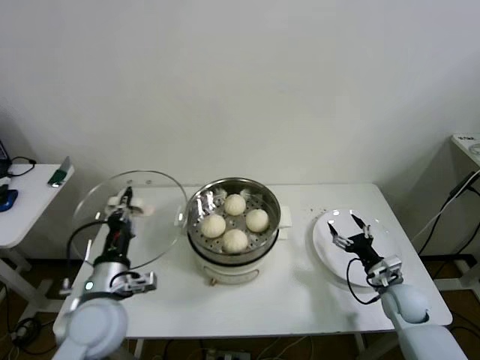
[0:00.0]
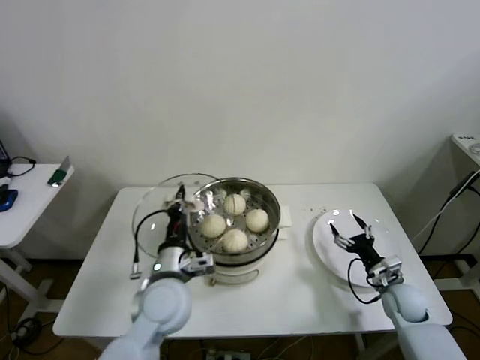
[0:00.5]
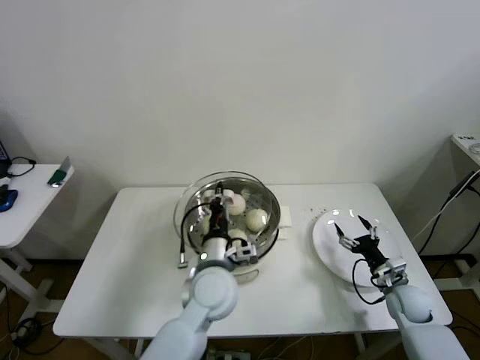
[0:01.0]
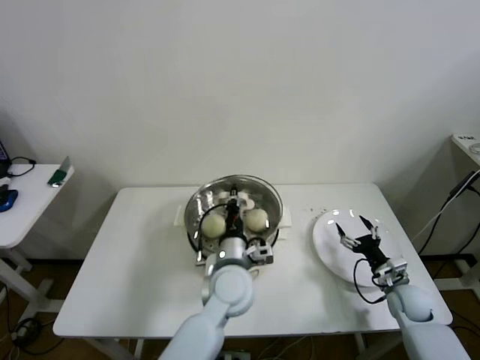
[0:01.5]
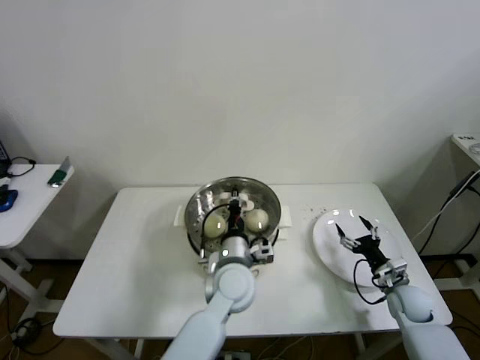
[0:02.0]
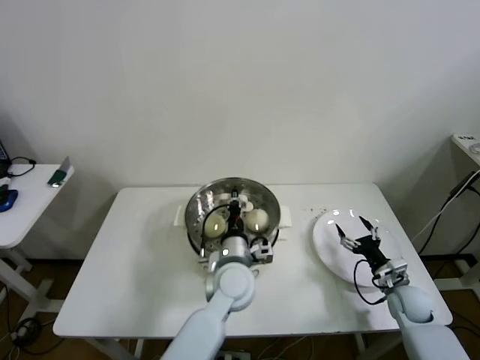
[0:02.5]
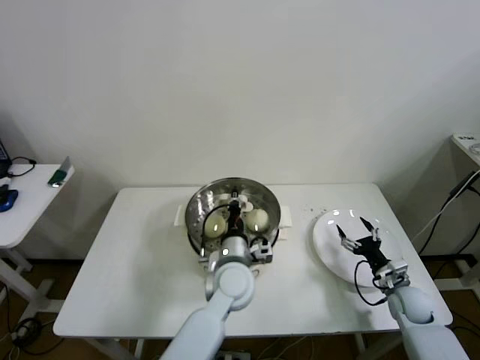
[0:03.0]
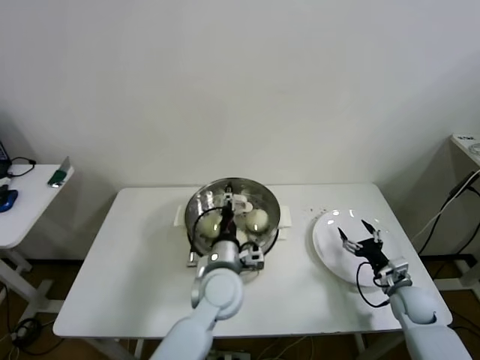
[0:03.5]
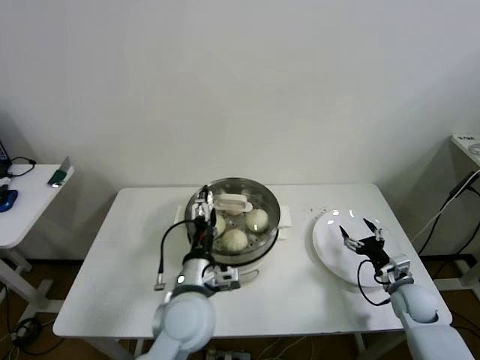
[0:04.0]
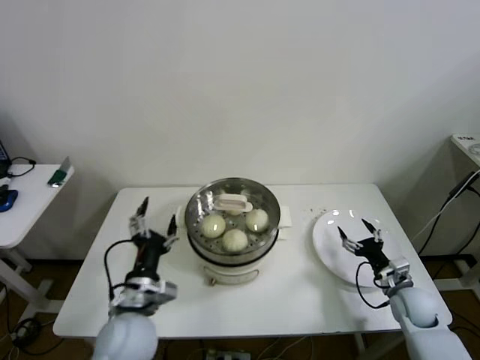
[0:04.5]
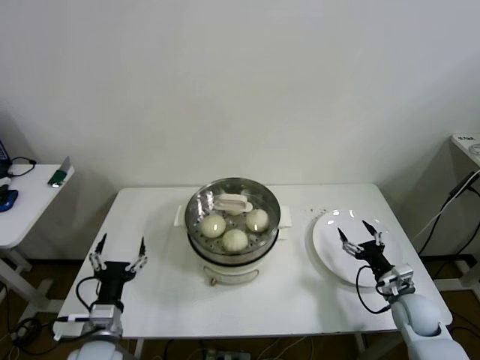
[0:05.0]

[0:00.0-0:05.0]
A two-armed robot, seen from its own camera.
Step, 0:00.0 to 0:03.5: Place the pot lid on the steamer with left gripper.
0:00.0 to 0:02.5: The left gripper moves to the right and forward, some 25 cm.
0:02.5 to 0:05.0: The left gripper is displaced to the left and backward by some 30 cm, and opens up.

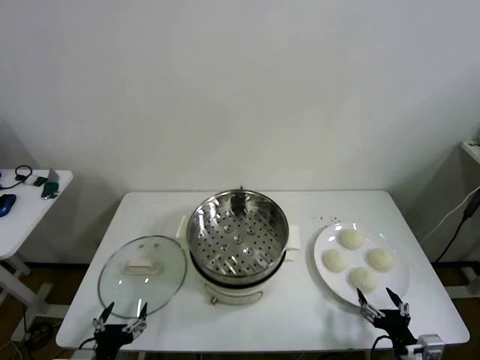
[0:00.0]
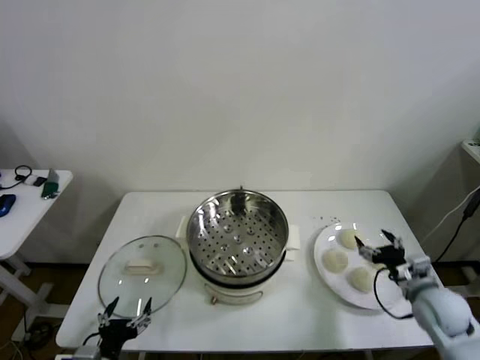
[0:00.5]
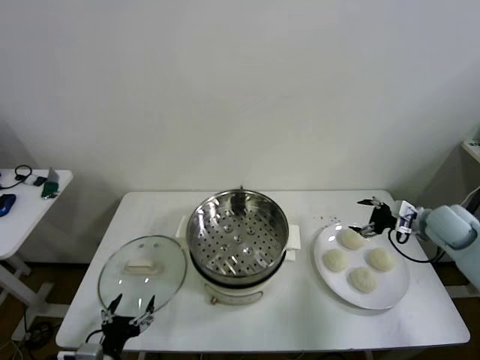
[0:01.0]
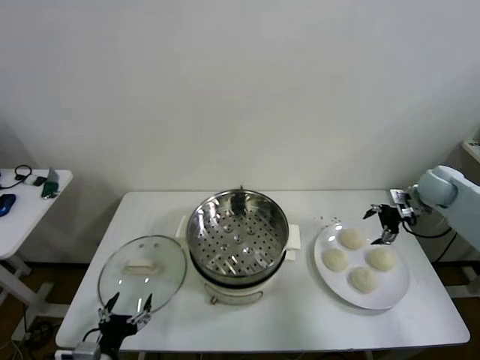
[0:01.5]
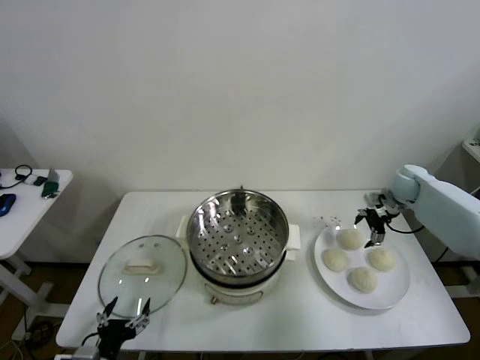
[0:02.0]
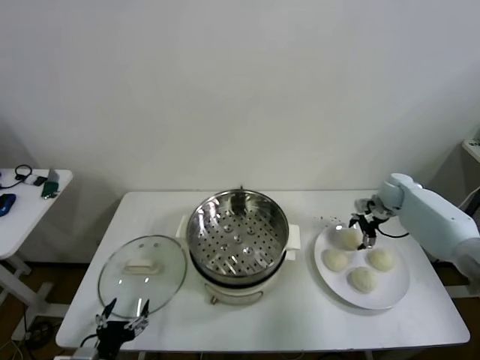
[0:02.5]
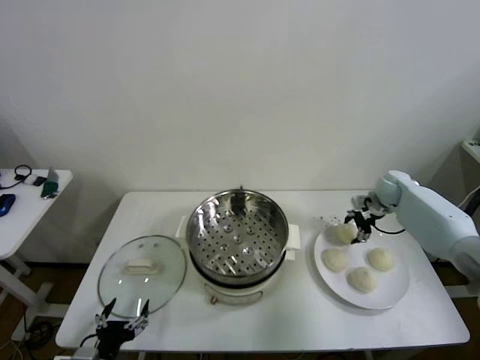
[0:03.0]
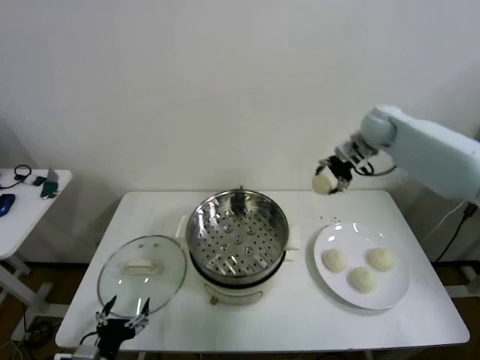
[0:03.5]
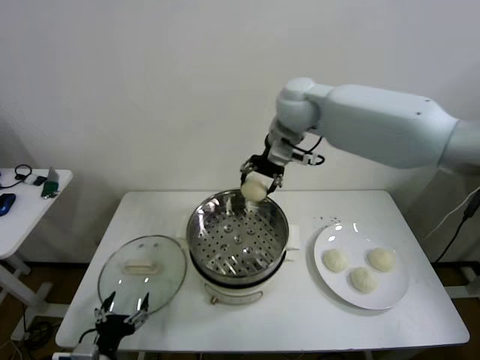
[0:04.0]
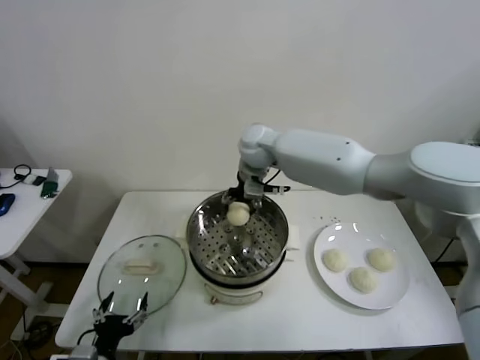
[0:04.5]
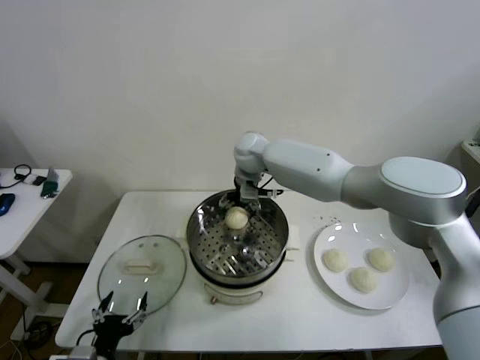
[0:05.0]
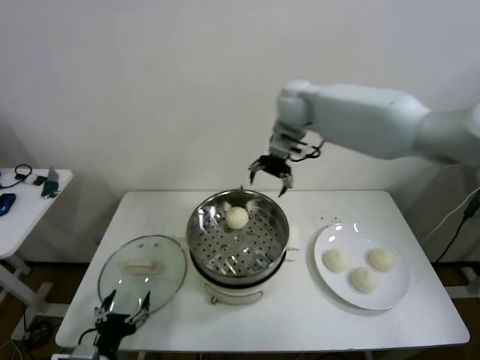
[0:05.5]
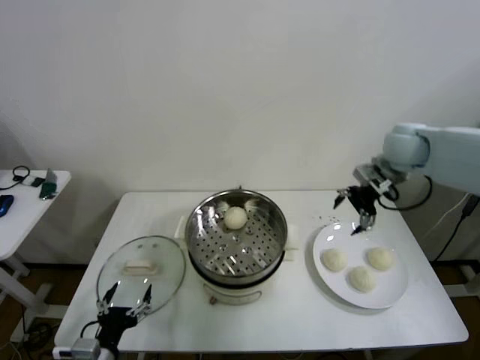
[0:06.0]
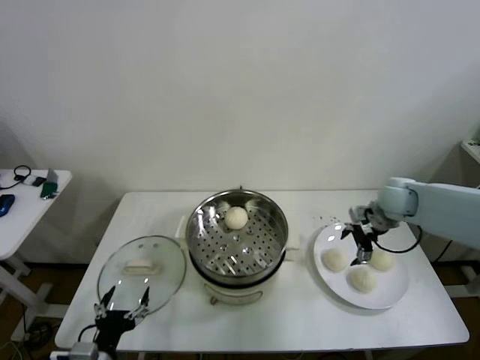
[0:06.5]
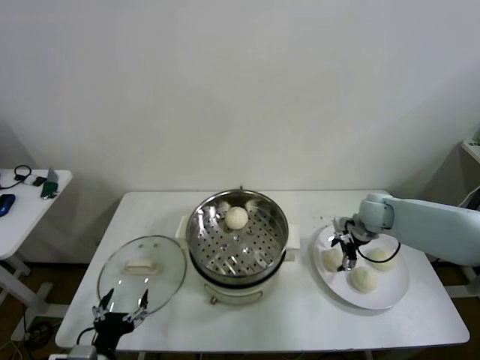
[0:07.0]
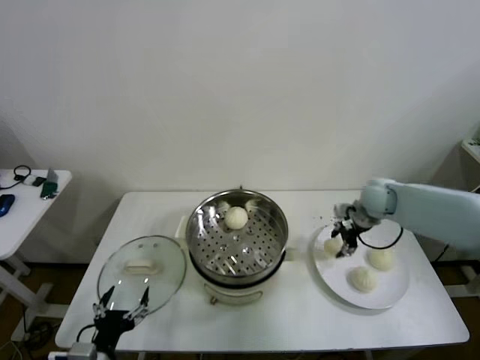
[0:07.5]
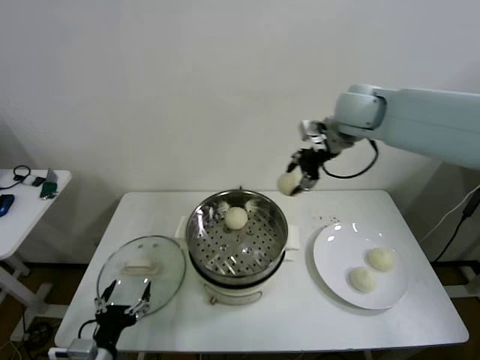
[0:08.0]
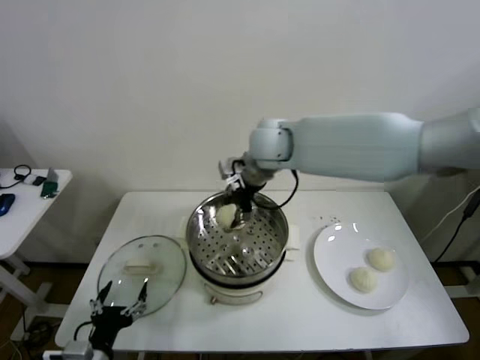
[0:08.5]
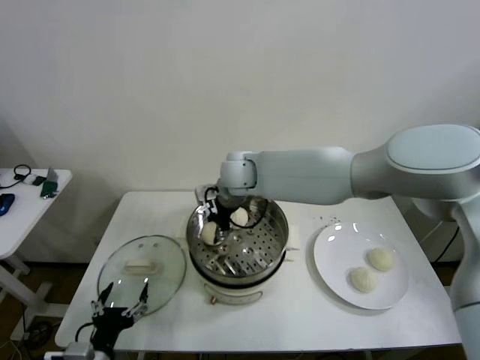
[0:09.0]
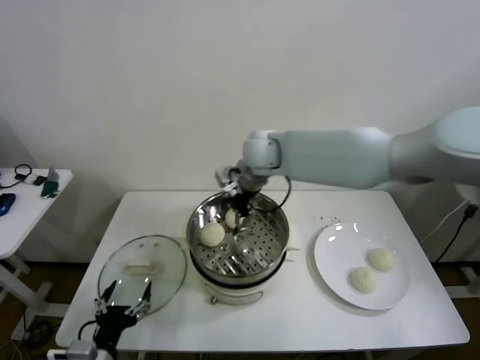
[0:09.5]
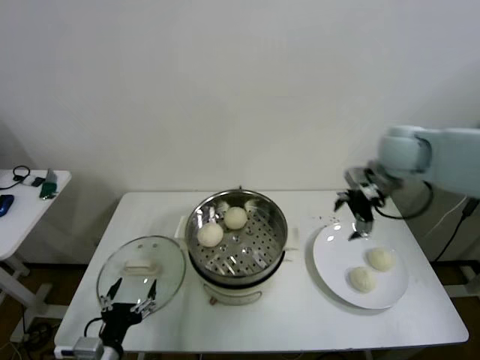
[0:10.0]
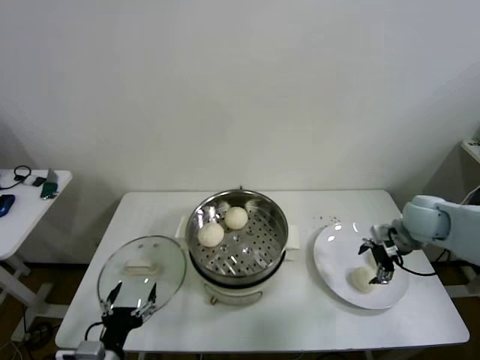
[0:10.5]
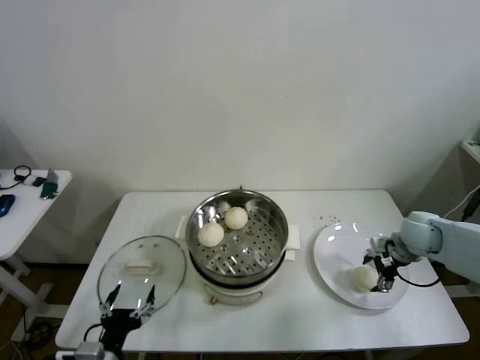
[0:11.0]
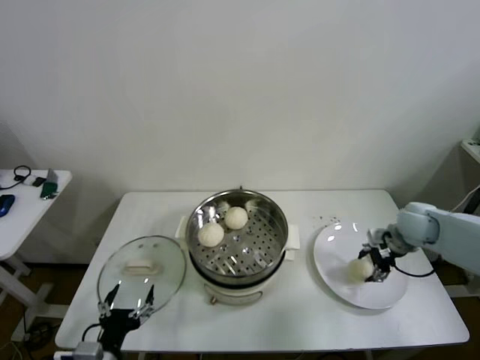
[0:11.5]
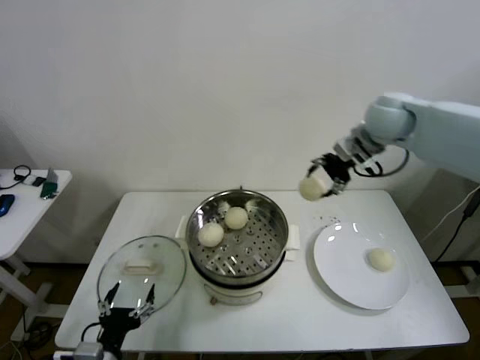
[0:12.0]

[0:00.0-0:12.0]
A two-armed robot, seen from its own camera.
Step, 0:00.0 to 0:02.5: Grasp the baozi in the plate with right gripper.
Step, 0:03.0 to 0:04.5: Place the baozi on the steamer with right gripper.
Step, 0:05.5 to 0:07.0: Grasp the baozi in the plate with right gripper.
Step, 0:07.5 to 0:09.0: Place the baozi on the steamer with right gripper.
Step, 0:09.5 to 0:11.0: Grasp the baozi in the plate with right gripper.
0:02.0 to 0:04.0: The right gripper heads to the left and upward, covering about 40 cm, and closes.
0:04.0 to 0:06.0: The right gripper shifts approximately 25 cm to the right, and opens up.
0:06.0 to 0:08.0: The right gripper moves to the left and upward, about 20 cm, and closes up.
0:08.0 to 0:10.0: The right gripper travels to the right and downward by some 15 cm, and opens up.
0:10.0 to 0:12.0: The right gripper is displaced to the left and forward by roughly 10 cm, travels downward and back again, approximately 20 cm each way, and closes.

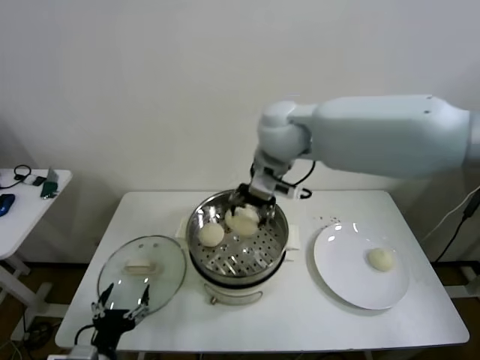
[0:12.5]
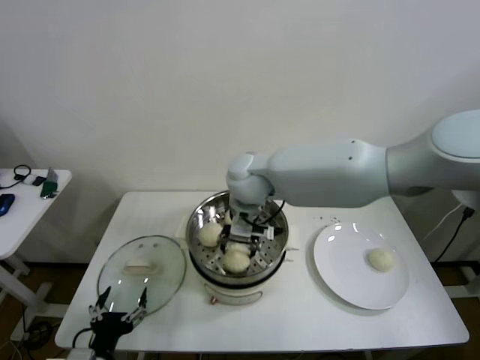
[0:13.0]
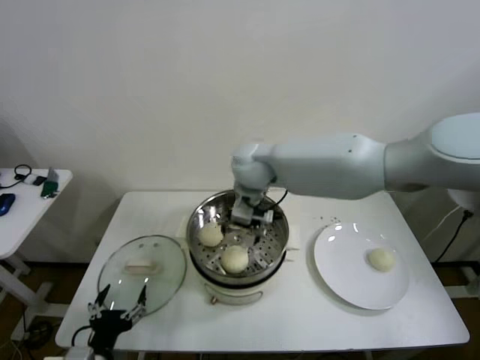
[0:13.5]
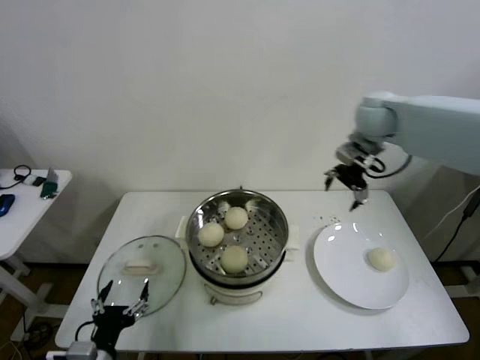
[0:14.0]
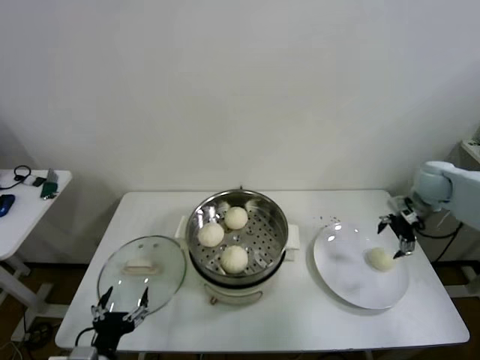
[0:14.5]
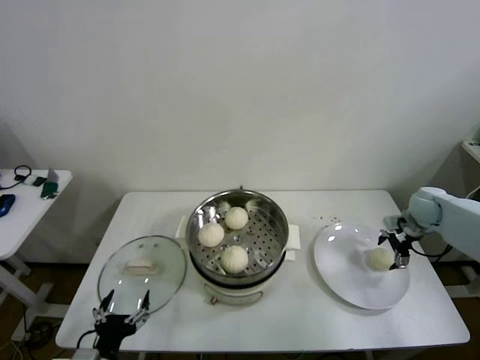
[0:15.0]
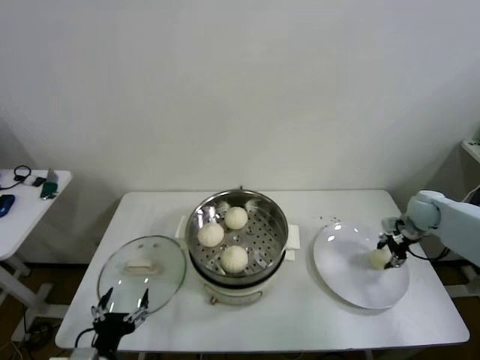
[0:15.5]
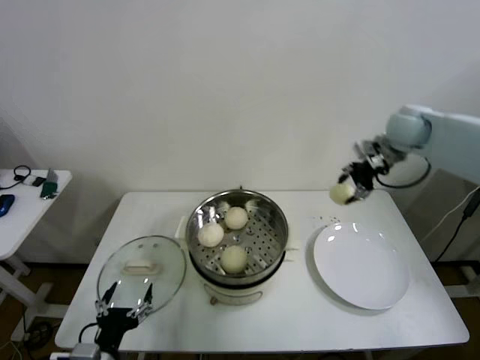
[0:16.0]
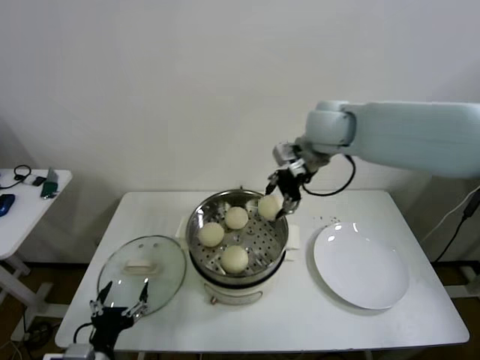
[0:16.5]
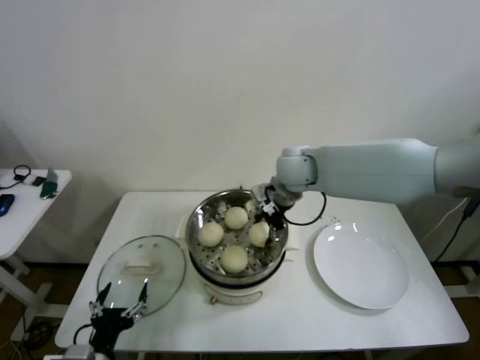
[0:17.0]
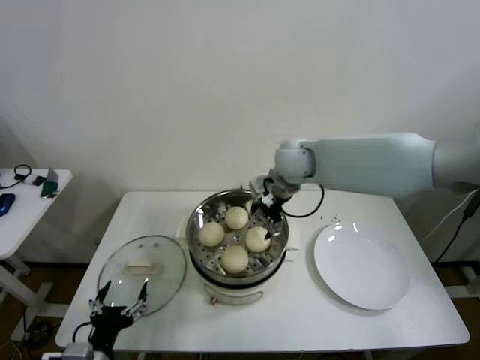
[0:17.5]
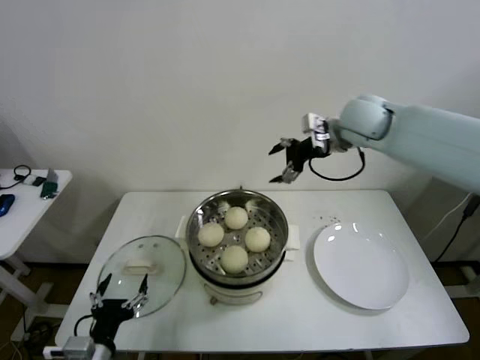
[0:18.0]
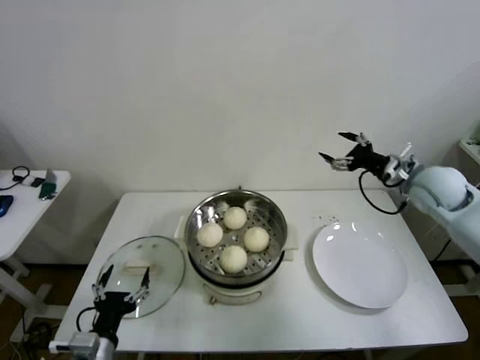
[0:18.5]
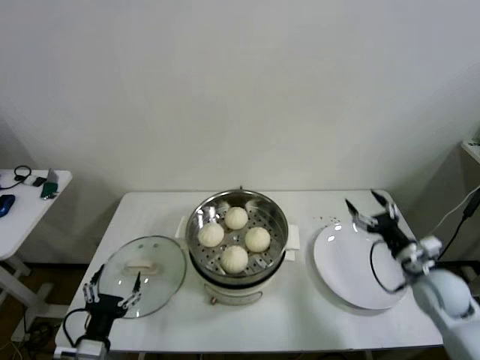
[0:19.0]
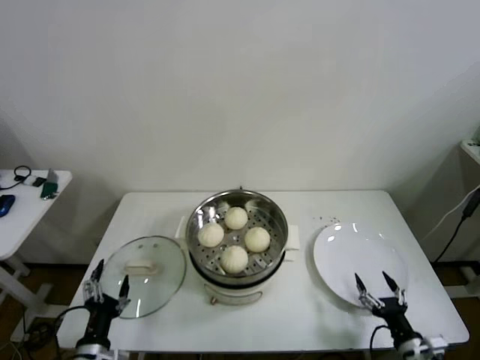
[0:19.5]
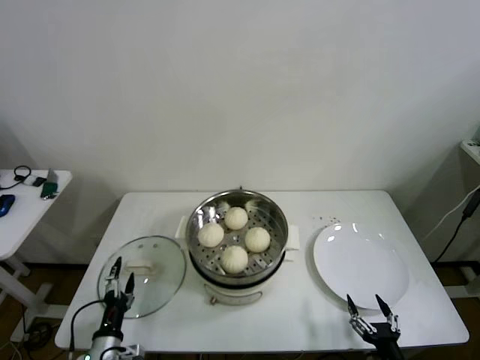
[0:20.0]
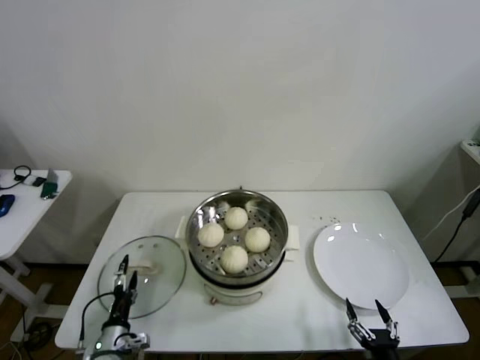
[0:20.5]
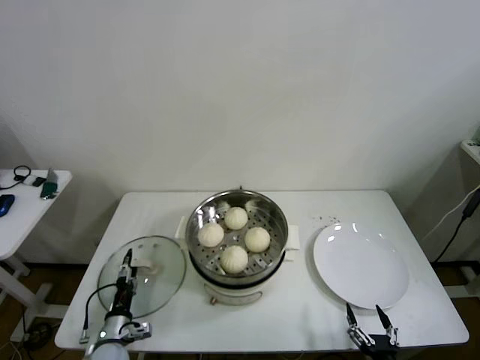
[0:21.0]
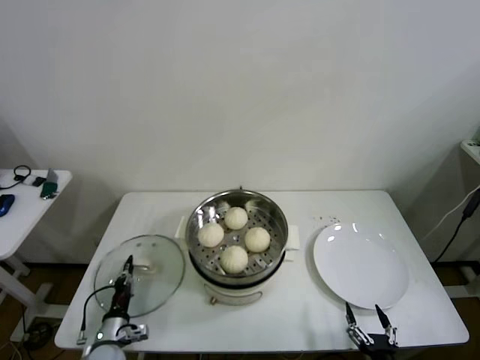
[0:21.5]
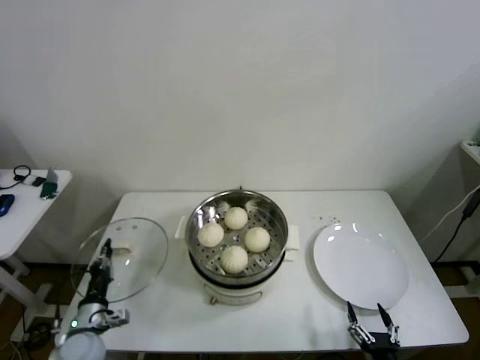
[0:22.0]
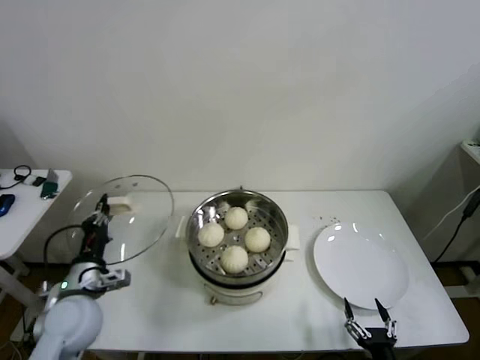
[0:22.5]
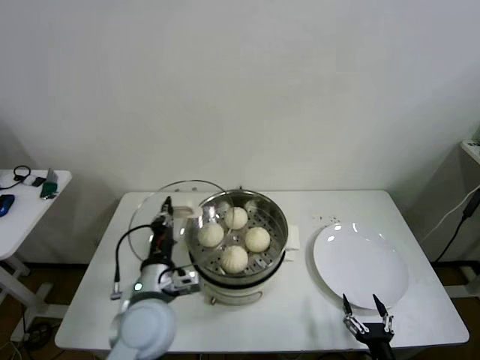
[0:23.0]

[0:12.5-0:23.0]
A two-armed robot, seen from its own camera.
Step, 0:13.5 to 0:15.0: Grasp the baozi in the plate with right gripper.
Step, 0:15.5 to 0:17.0: Place the baozi on the steamer with right gripper.
Step, 0:17.5 to 0:21.5: Grasp the pot lid with left gripper.
0:12.5 to 0:14.5: The right gripper shifts some 40 cm to the right and downward, and opens.
0:14.5 to 0:16.5: The right gripper heads to the left and upward, covering roughly 35 cm, and closes.
0:16.5 to 0:19.0: The right gripper moves downward, to the right and backward, some 40 cm, and opens up.
0:19.0 to 0:21.0: The right gripper shifts roughly 30 cm backward and downward. The left gripper goes roughly 15 cm downward and forward.
0:21.0 to 0:23.0: The left gripper is displaced upward and to the right by some 25 cm, and closes its fingers.
